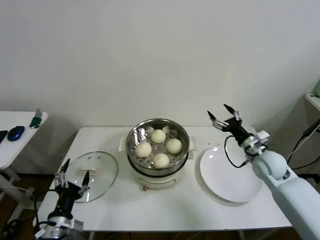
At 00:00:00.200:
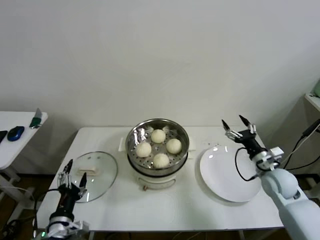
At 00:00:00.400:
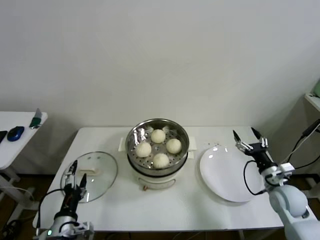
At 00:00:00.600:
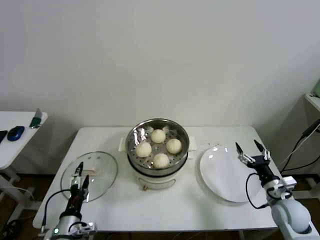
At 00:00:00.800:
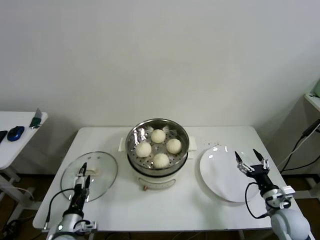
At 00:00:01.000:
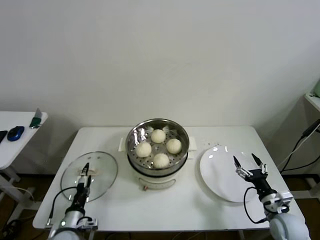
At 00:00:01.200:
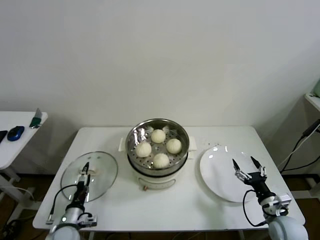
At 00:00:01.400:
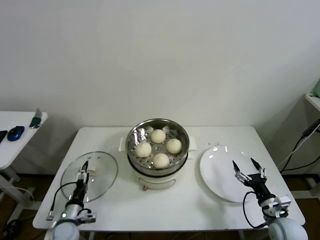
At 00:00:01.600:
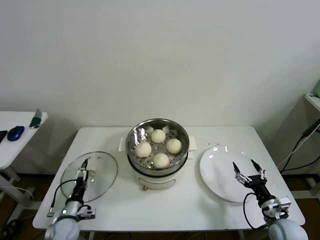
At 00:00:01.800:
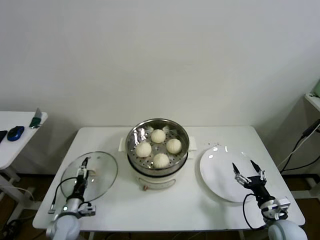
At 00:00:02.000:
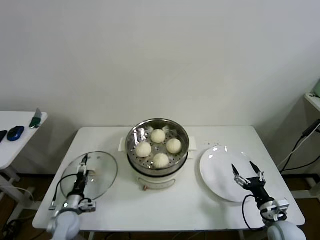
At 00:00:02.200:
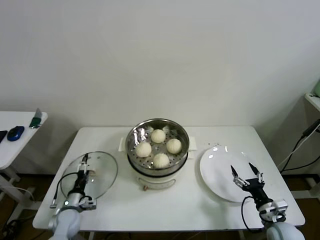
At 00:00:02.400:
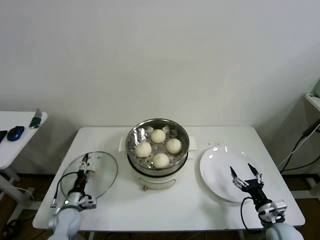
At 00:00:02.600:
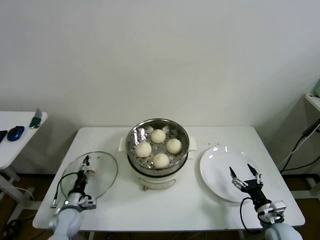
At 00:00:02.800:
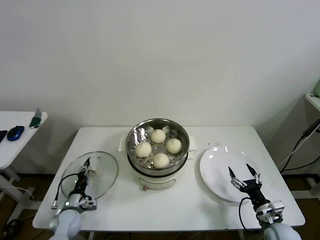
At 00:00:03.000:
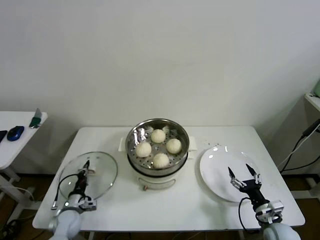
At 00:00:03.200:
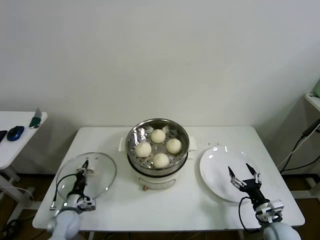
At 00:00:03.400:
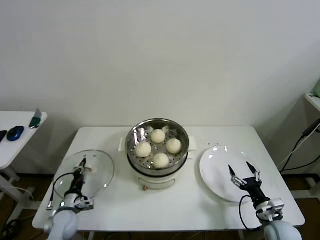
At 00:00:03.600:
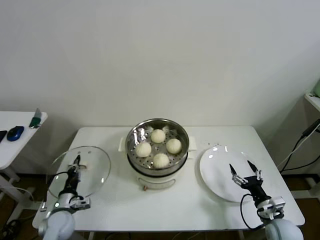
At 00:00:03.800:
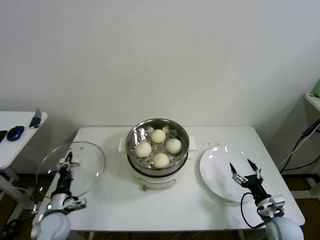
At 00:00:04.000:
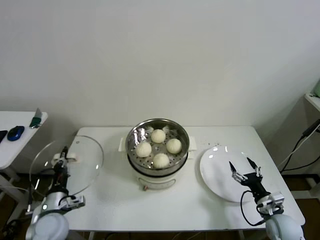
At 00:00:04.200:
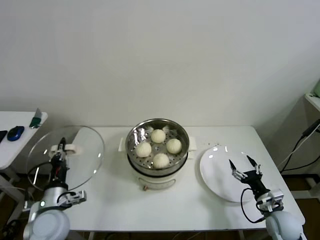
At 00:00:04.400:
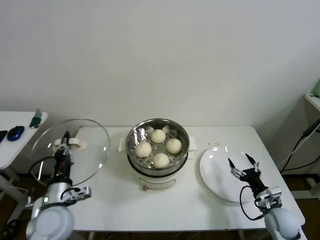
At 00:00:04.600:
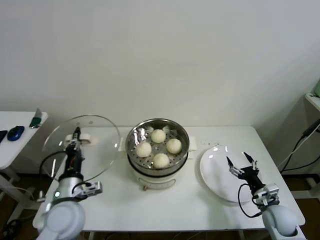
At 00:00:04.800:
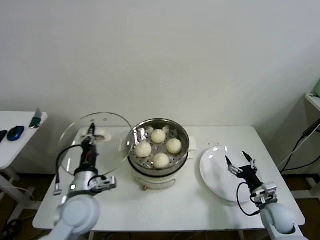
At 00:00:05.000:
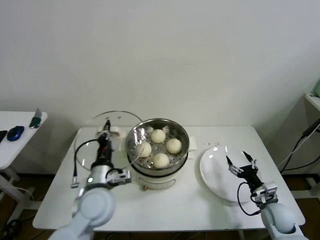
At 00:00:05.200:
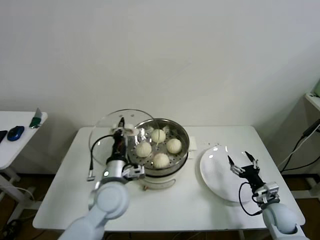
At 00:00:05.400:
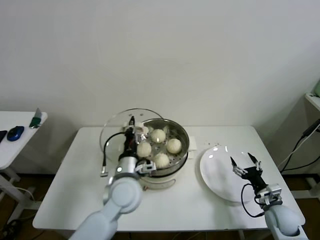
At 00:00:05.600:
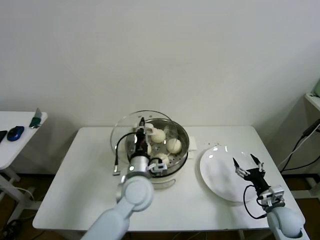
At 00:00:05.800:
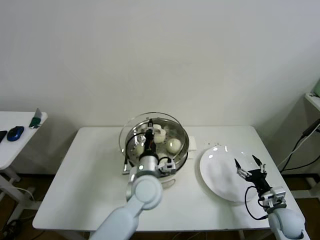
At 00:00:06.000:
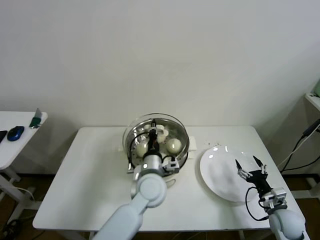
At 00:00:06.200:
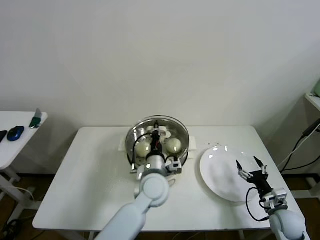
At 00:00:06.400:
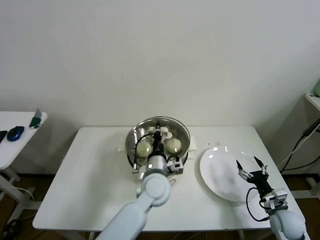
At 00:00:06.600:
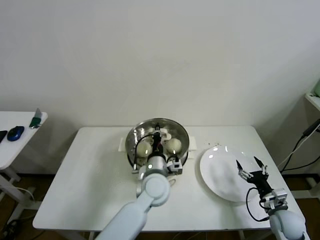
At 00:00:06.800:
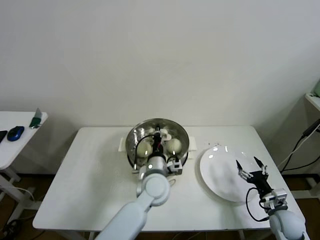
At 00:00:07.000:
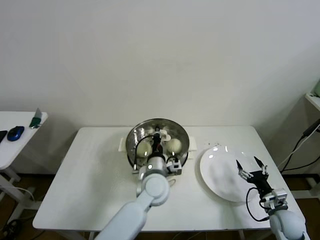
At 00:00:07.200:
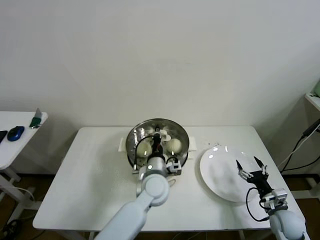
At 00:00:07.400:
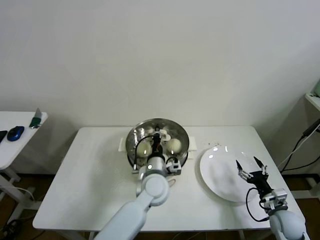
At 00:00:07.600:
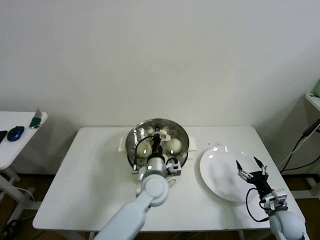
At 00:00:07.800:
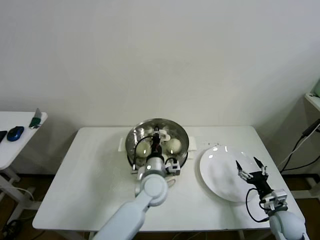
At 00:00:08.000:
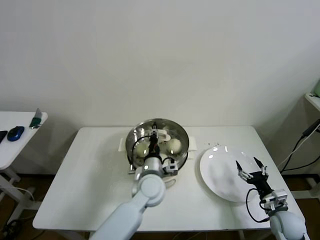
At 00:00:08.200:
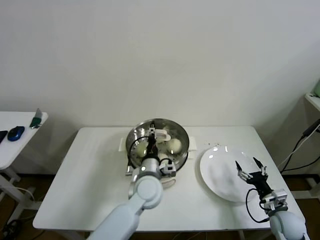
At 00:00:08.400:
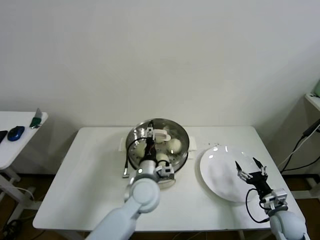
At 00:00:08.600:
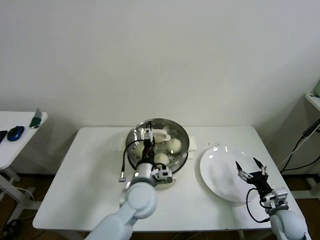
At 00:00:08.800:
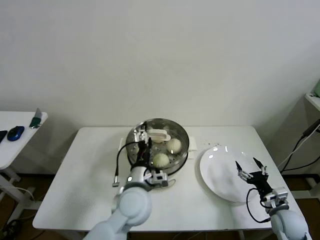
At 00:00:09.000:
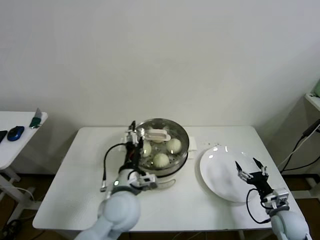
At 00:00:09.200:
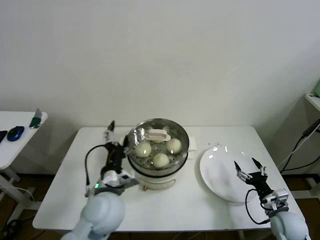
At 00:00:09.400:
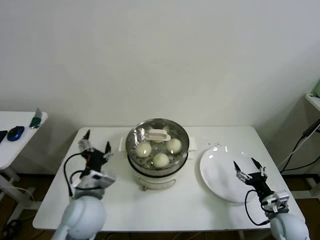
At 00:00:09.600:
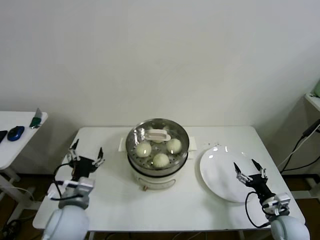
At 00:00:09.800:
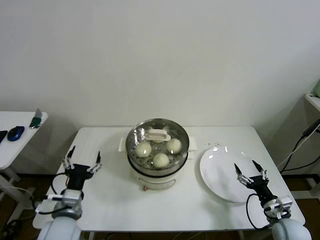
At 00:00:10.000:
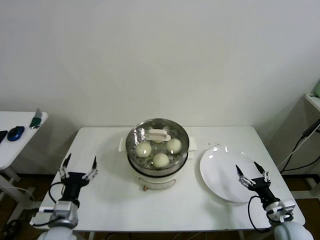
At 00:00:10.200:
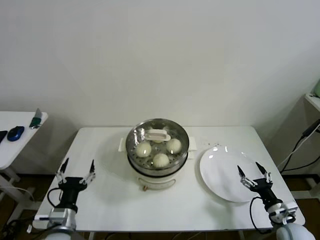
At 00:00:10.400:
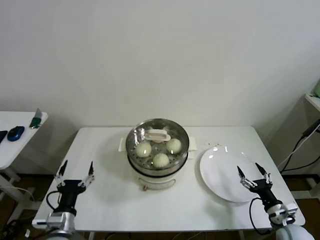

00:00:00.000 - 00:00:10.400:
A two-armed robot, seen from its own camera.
Step, 00:00:00.000 - 00:00:03.000: Grasp the pot lid with left gripper.
Step, 00:00:03.200 - 00:00:08.000: Place the pot lid on the steamer with left gripper.
00:00:00.000 - 00:00:01.400: The right gripper moves backward and downward, about 25 cm, while the left gripper travels downward and forward by some 15 cm.
00:00:01.400 - 00:00:03.000: The left gripper travels forward by some 5 cm, and closes up.
00:00:03.000 - 00:00:04.400: The left gripper travels upward by some 20 cm.
00:00:04.400 - 00:00:06.000: The left gripper moves to the right, roughly 25 cm.
00:00:06.000 - 00:00:07.400: There are only small adjustments of the grippers.
00:00:07.400 - 00:00:09.000: The left gripper heads backward, to the left and upward, covering about 10 cm, and opens up.
00:00:09.000 - 00:00:10.400: The left gripper moves to the left, backward and downward, roughly 25 cm.

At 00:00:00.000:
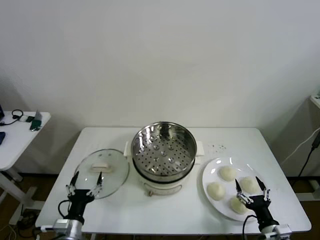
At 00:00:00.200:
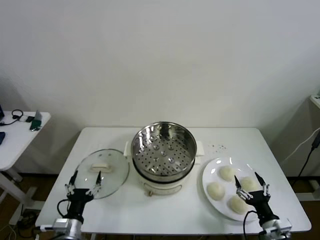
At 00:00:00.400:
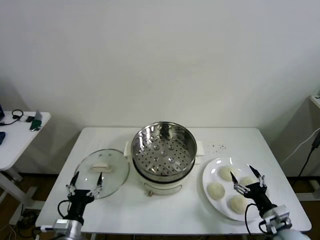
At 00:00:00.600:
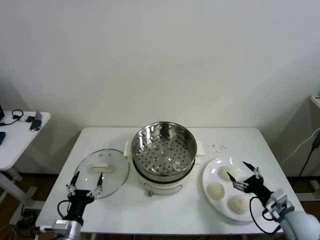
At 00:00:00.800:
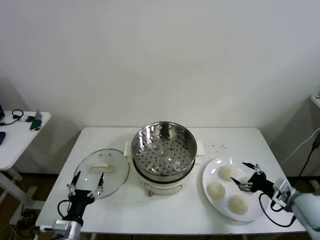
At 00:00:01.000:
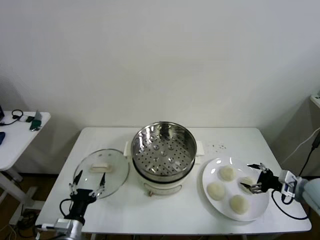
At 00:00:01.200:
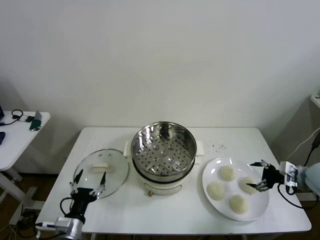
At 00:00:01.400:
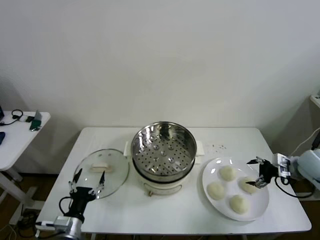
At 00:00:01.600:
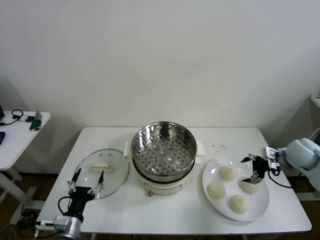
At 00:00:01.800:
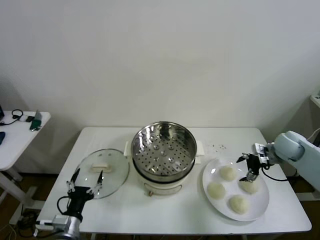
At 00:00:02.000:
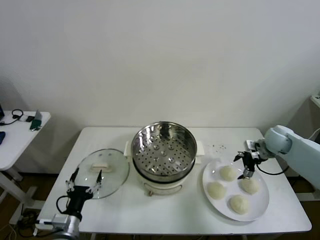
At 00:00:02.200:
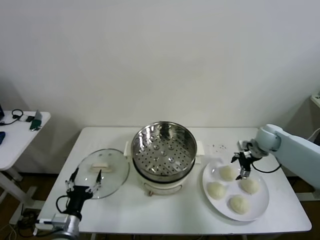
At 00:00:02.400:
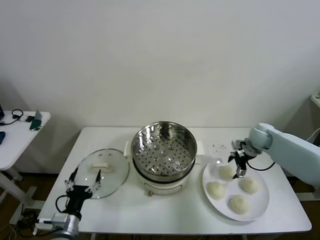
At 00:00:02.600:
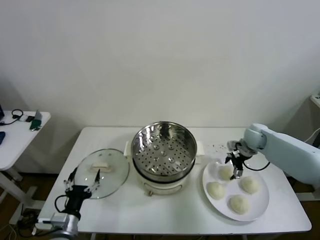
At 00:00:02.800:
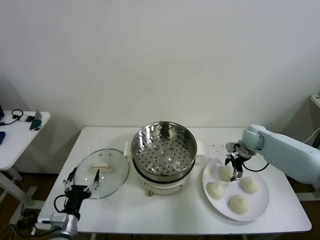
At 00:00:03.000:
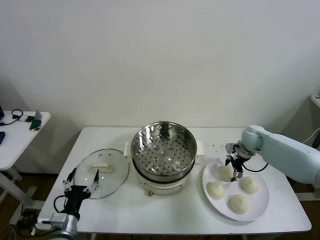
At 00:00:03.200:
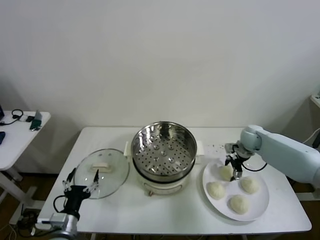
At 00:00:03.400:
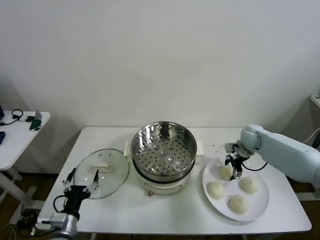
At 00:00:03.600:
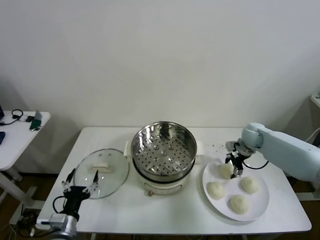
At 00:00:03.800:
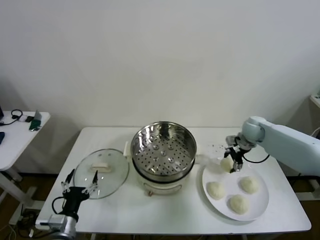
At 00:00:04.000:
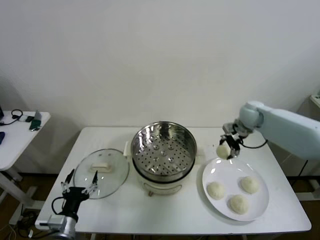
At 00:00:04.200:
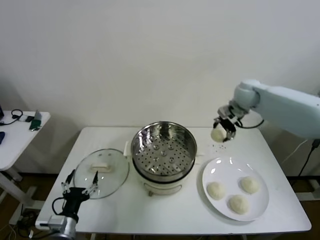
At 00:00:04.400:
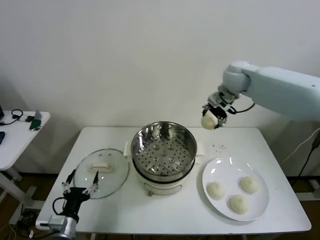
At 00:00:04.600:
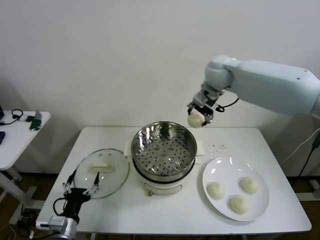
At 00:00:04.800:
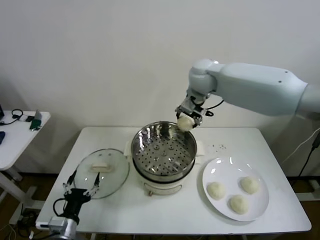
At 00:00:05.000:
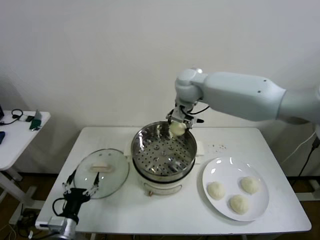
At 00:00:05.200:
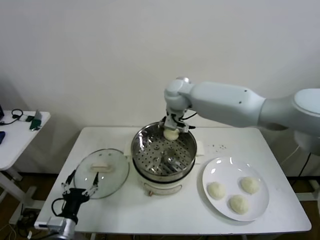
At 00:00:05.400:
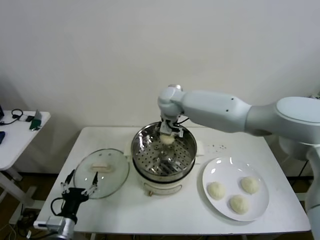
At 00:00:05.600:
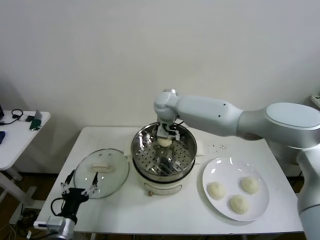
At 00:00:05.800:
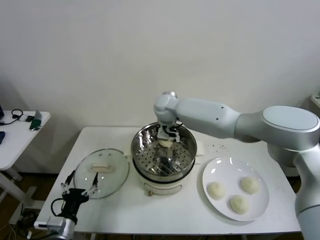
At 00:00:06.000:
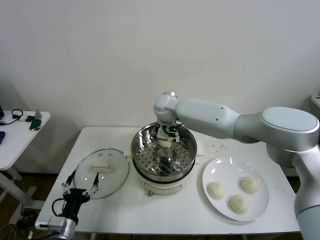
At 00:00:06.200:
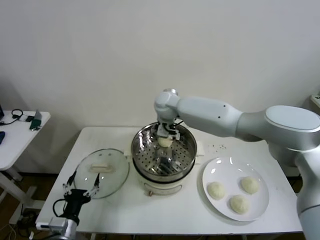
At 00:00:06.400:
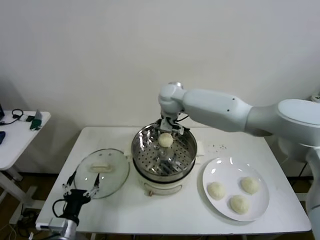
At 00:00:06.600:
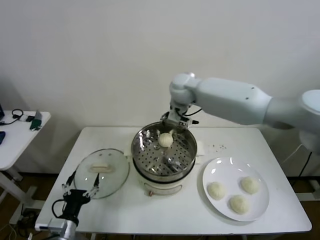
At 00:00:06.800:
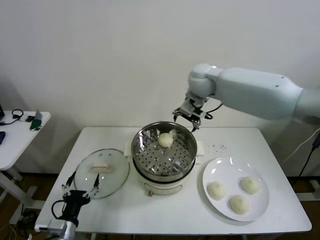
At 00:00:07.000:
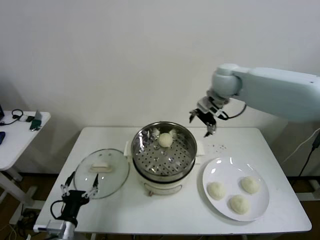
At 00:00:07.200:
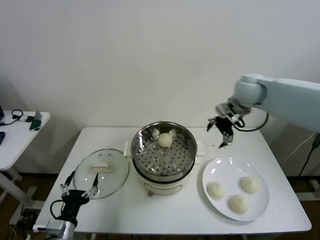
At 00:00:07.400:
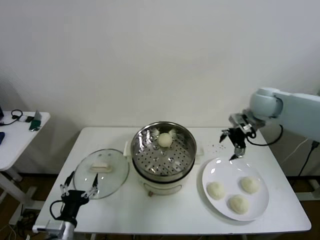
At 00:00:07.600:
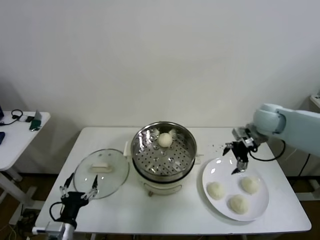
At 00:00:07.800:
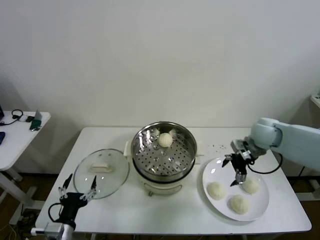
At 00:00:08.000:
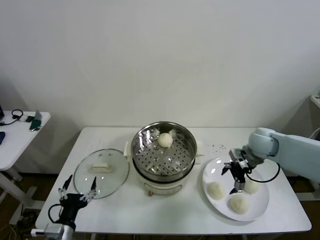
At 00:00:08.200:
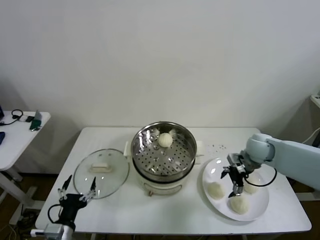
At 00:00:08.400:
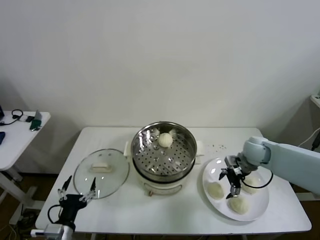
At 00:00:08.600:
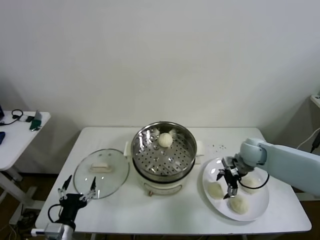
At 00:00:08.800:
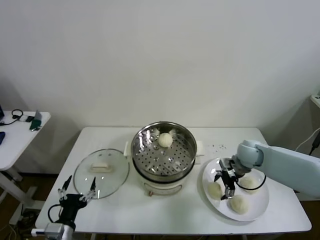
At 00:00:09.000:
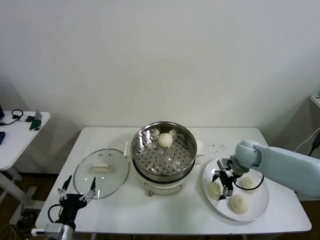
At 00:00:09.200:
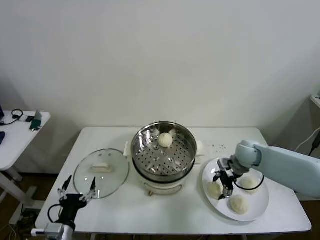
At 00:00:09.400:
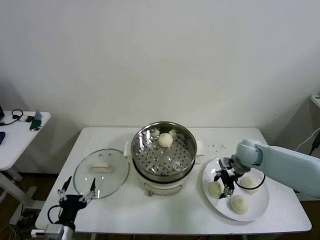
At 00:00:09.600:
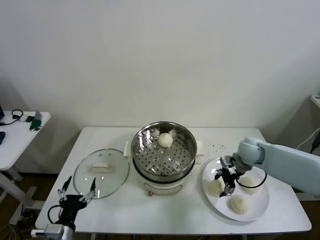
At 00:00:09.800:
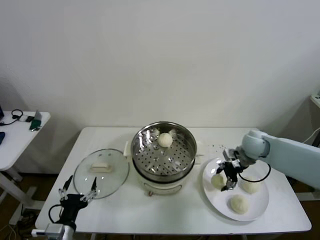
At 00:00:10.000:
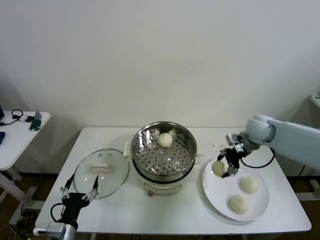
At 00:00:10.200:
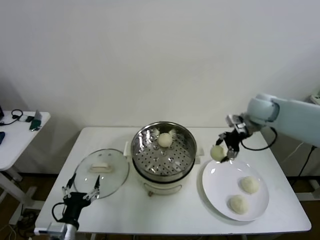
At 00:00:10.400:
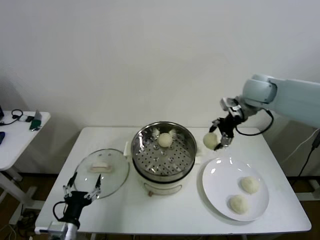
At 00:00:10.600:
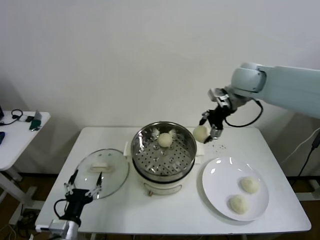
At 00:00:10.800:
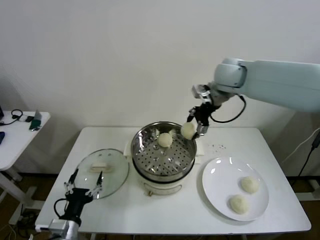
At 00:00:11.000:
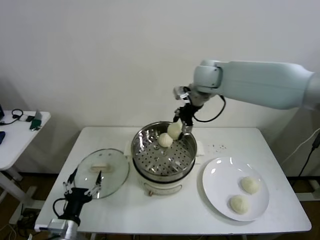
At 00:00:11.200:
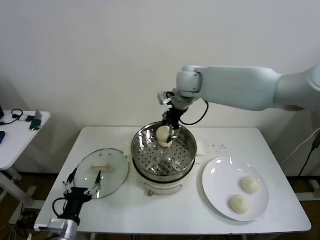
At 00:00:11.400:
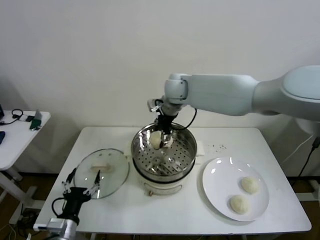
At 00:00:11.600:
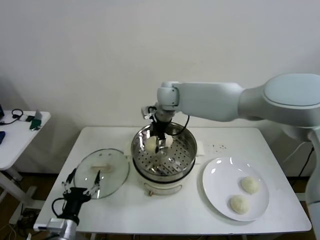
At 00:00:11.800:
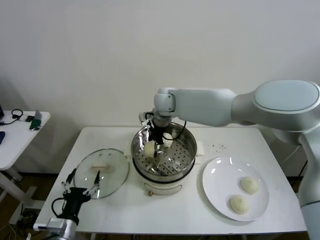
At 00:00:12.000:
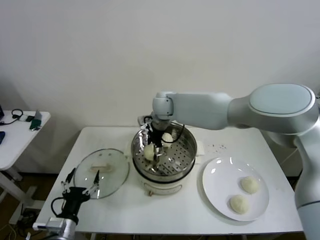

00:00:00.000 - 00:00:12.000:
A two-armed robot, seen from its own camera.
Step, 00:00:00.000 - 00:00:03.400: Grasp the baozi in the plate with right gripper.
Step, 00:00:03.600 - 00:00:06.000: Place the baozi on the steamer with right gripper.
Step, 00:00:06.200 - 00:00:09.000: Grasp the baozi in the plate with right gripper.
Step, 00:00:09.200 - 00:00:12.000: Place the baozi on the steamer with right gripper.
00:00:01.600 - 00:00:03.000: The right gripper shifts roughly 15 cm forward and to the left.
00:00:03.000 - 00:00:04.400: The right gripper goes roughly 30 cm upward and to the left, and closes.
00:00:04.400 - 00:00:06.000: The right gripper shifts about 25 cm to the left and downward, and opens.
00:00:06.000 - 00:00:07.600: The right gripper shifts approximately 35 cm to the right.
00:00:07.600 - 00:00:09.000: The right gripper moves downward, approximately 15 cm.
00:00:09.000 - 00:00:10.400: The right gripper shifts roughly 25 cm upward, and closes.
00:00:10.400 - 00:00:12.000: The right gripper goes roughly 25 cm to the left, and opens.
